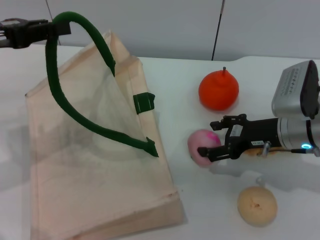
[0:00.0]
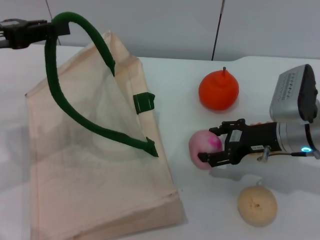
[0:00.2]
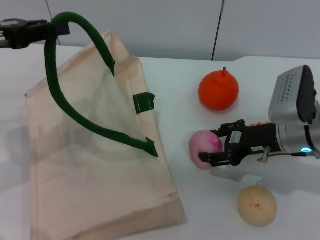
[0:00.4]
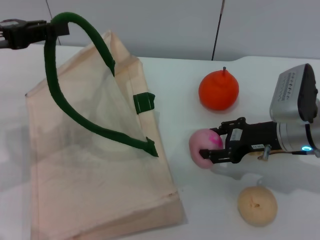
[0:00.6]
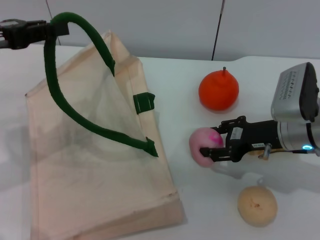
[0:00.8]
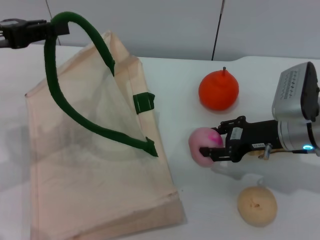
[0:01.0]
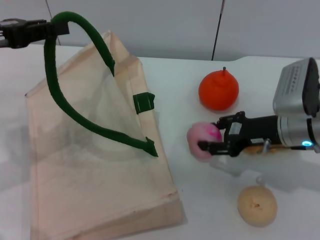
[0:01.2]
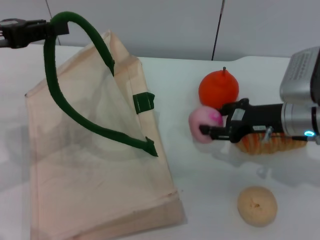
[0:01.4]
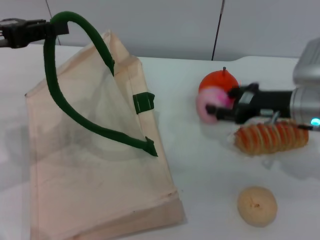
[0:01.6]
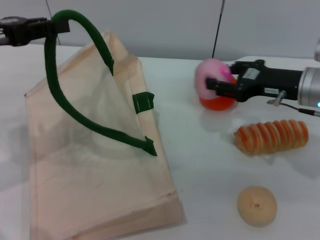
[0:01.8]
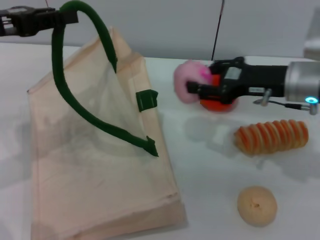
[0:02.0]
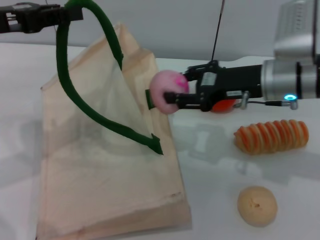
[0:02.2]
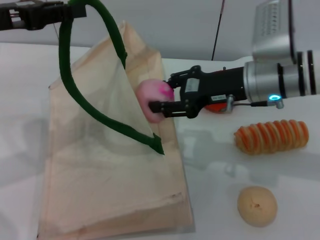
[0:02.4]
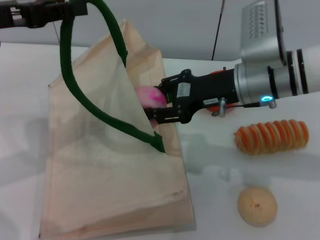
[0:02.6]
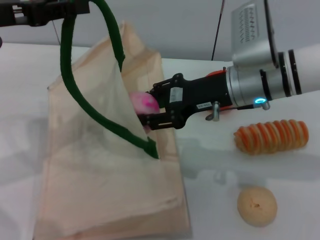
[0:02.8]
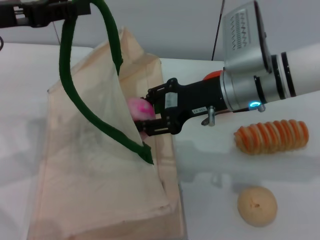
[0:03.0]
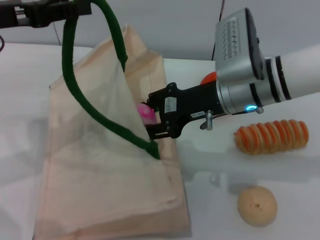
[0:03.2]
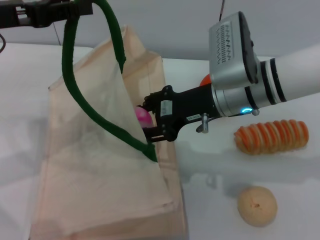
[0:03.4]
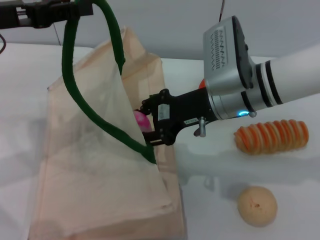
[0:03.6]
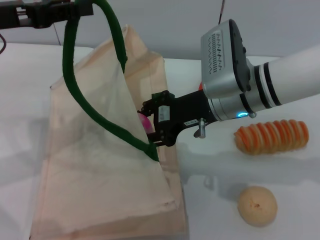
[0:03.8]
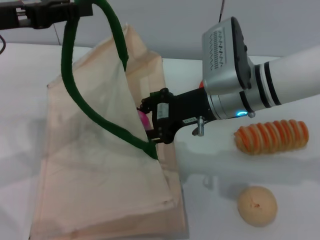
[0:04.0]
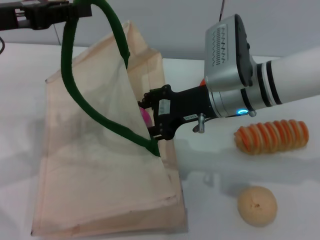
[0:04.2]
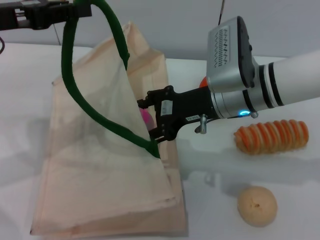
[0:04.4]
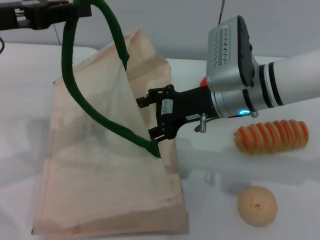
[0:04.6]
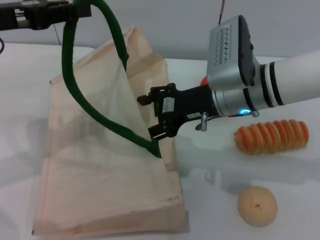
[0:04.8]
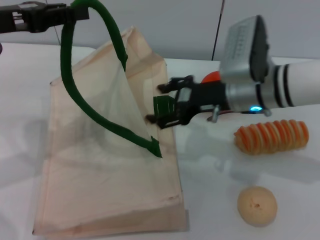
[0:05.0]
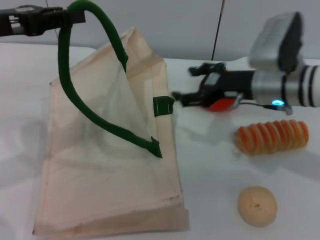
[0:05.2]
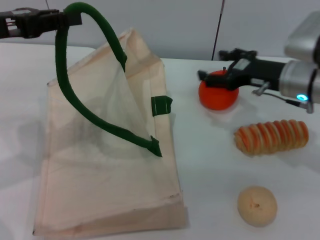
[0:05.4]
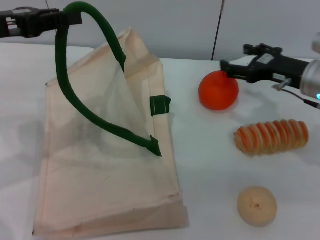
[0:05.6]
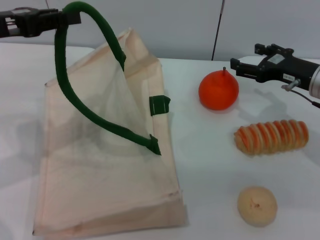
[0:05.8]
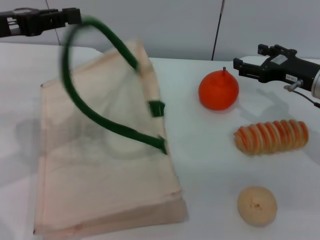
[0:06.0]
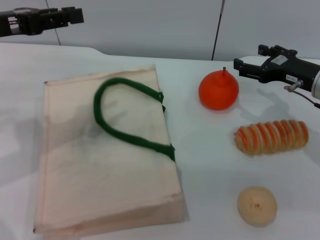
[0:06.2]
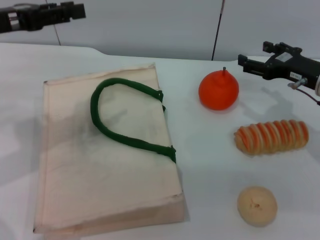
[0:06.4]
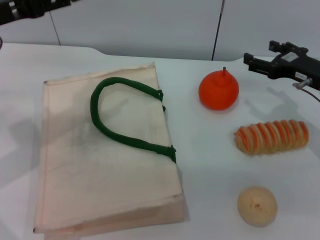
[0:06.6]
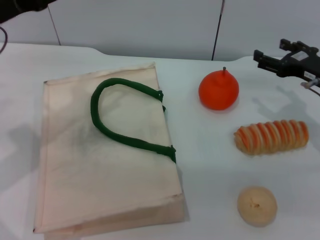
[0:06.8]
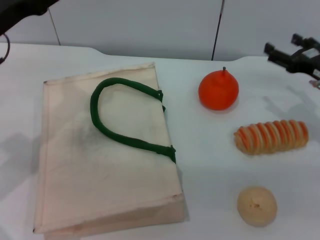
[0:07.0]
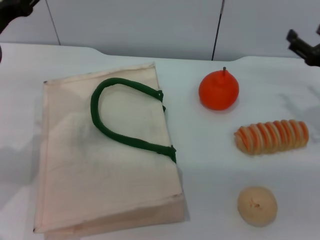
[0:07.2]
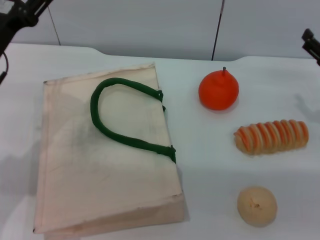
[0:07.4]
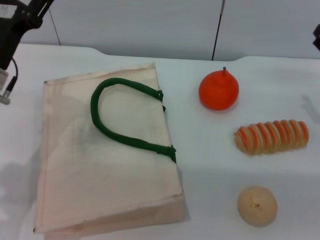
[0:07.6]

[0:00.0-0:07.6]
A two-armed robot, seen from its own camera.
Task of the whole recording: pick up the peach from the table and place it in the white handbag.
Step, 1.8 to 4.8 s: Place the peach into the woven bag with the right gripper.
Step, 5.0 to 6.8 s: Lower the woven bag with the left gripper to close it.
0.0 to 1.6 s: The right gripper closes up.
1.6 to 3.0 s: The right gripper travels to the left by approximately 10 cm.
3.0 to 4.6 s: The right gripper opens its fingers.
4.6 to 6.0 s: The right gripper moves to the right, some 15 cm.
6.0 to 7.6 s: The left gripper is displaced downward and to the right by some 10 cm, and opens up. The right gripper is displaced to the right by approximately 5 cm.

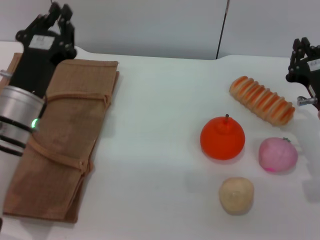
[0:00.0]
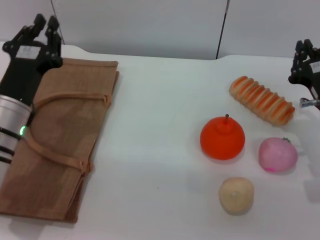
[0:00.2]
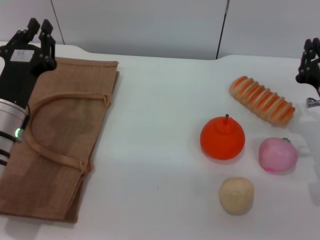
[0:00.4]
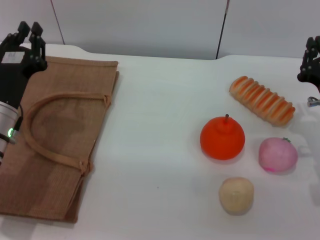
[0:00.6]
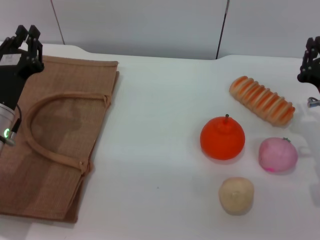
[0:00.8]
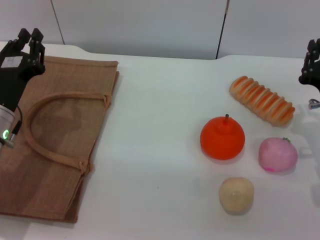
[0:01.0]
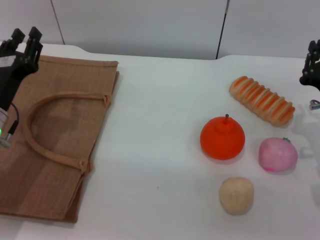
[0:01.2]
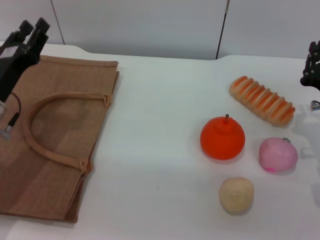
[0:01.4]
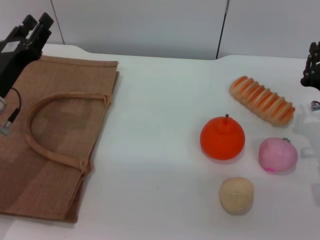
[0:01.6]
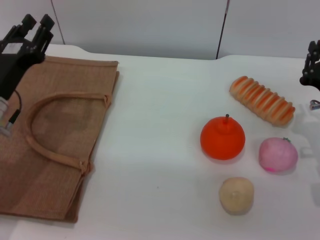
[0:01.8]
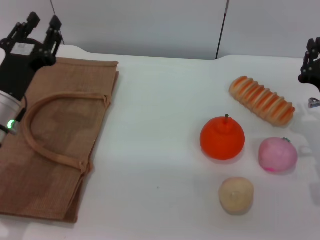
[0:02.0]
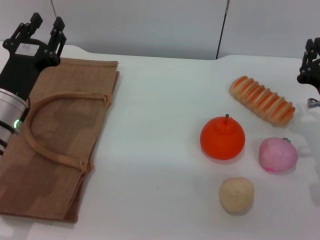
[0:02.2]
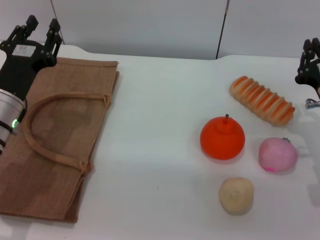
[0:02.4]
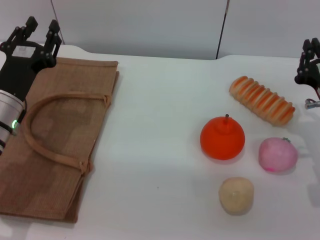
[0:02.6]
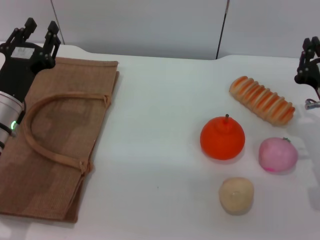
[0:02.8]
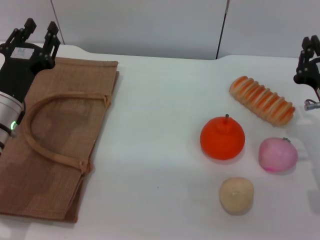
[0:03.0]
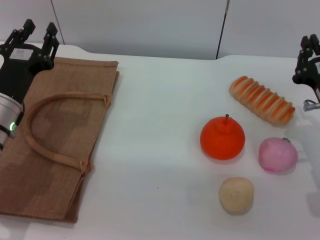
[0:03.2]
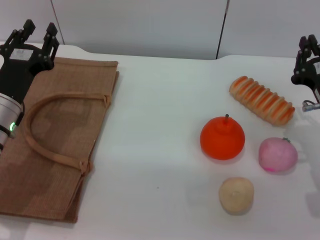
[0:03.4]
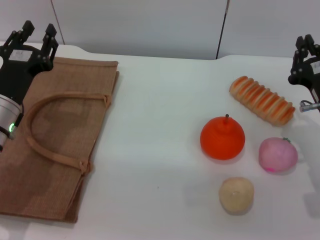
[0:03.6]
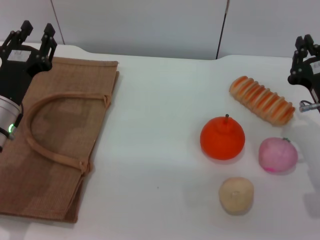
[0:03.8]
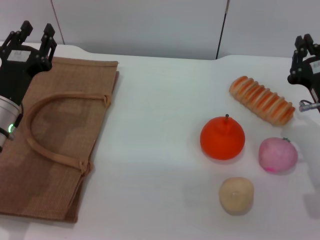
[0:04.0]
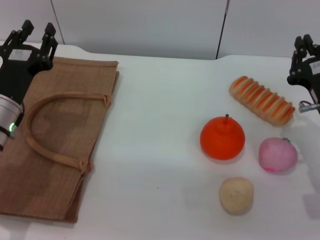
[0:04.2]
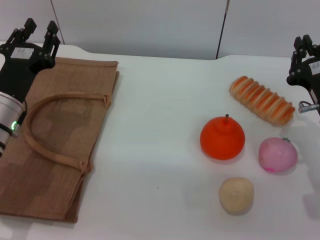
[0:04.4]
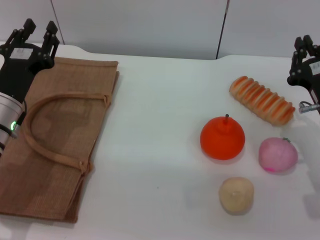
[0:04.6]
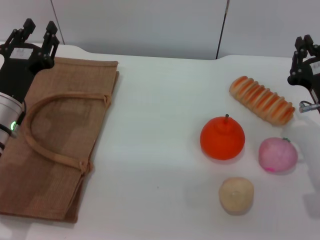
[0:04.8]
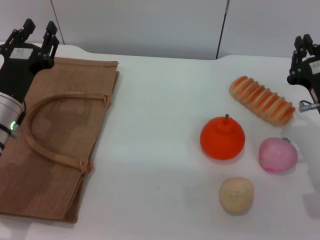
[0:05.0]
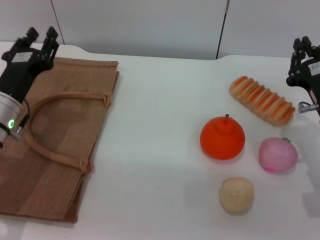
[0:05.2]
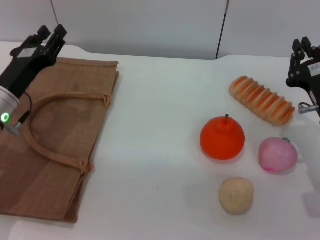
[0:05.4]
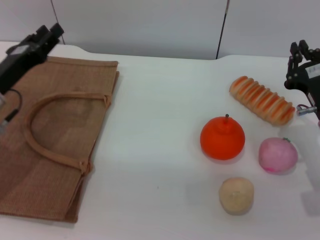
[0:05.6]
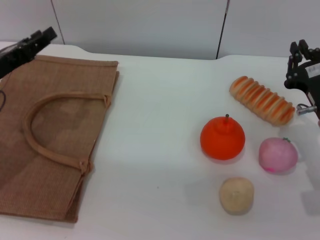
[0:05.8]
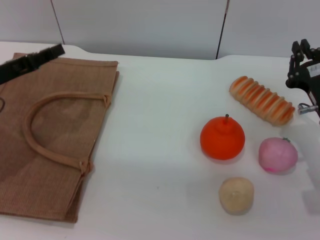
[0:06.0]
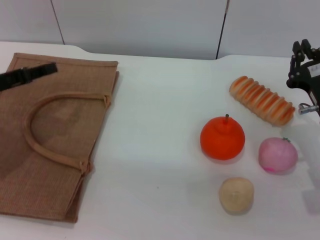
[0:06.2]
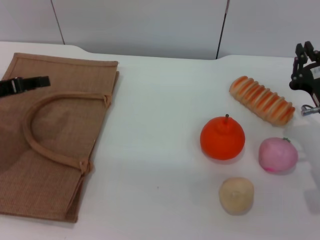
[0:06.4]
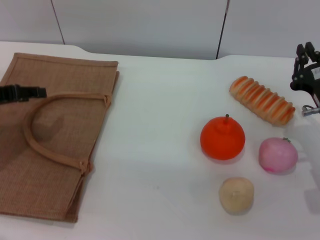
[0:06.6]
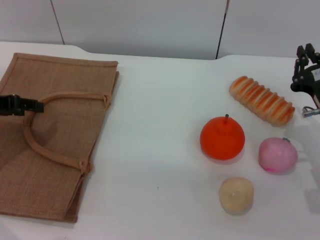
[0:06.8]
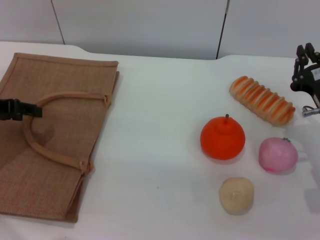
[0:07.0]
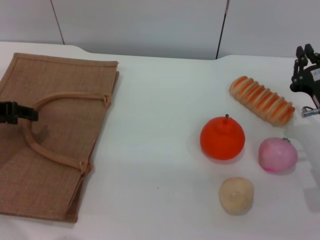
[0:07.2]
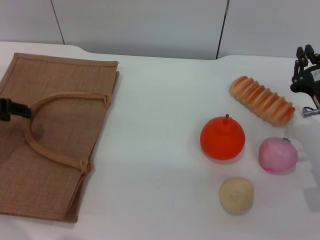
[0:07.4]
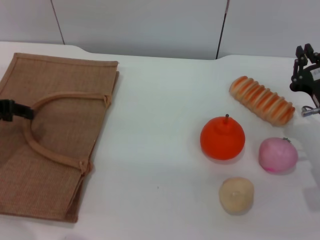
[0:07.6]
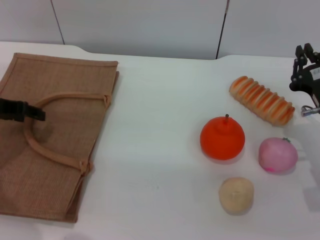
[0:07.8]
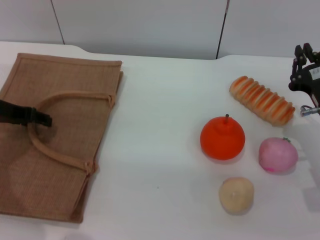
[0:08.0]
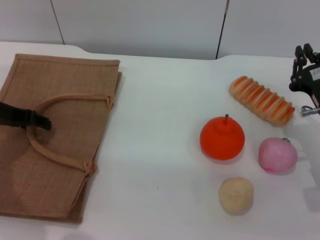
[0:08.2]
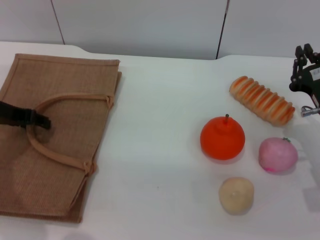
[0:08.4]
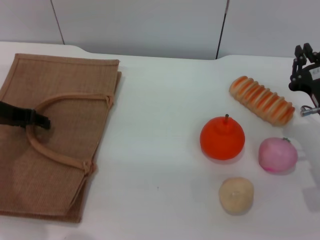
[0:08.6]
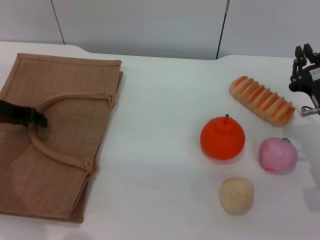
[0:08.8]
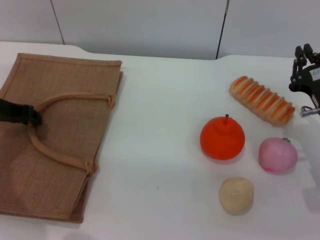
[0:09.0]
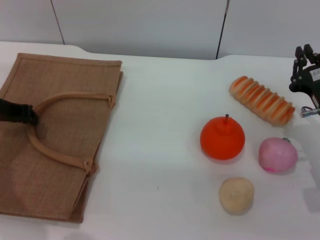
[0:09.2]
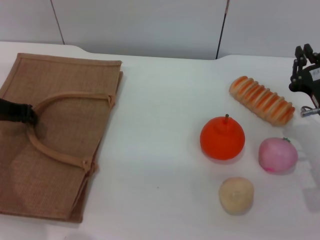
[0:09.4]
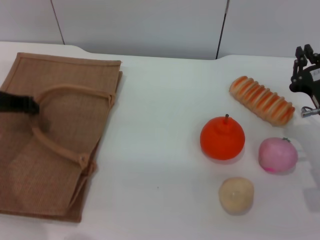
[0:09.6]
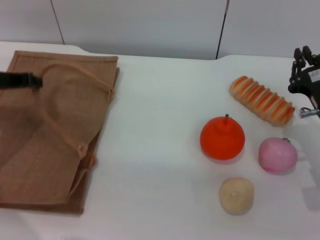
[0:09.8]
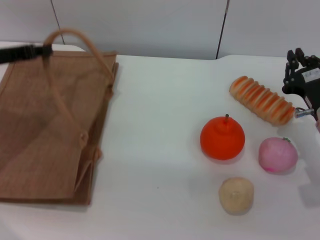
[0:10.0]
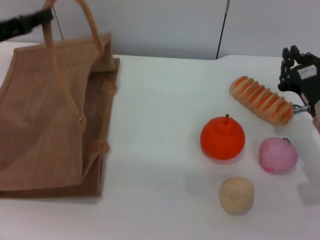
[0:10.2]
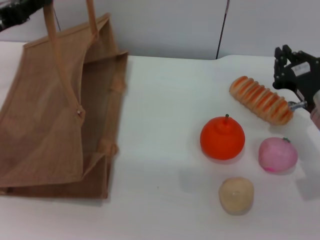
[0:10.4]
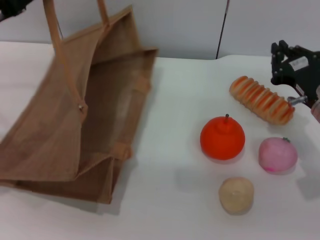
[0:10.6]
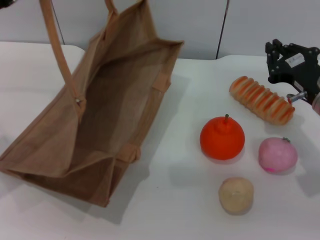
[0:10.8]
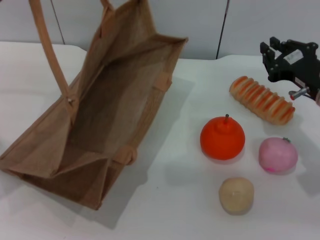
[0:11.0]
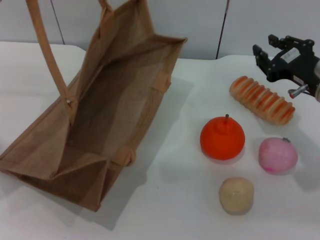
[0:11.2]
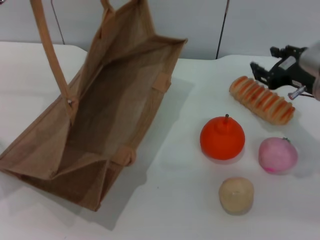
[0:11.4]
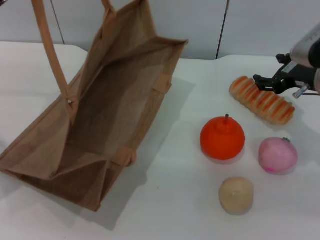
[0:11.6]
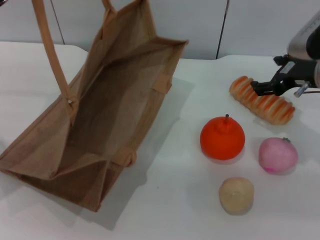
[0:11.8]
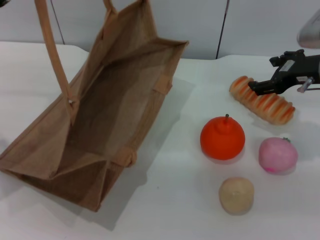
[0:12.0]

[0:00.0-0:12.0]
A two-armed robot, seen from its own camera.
Task of the whole recording: pick up the bread from the table and place it in the brown handbag.
Step, 0.0 to 10.0 s: Lift the woven bag with the left gripper to open it.
0.0 to 1.6 s: The left gripper shifts approximately 5 cm to the left, and opens its fingers.
3.0 to 4.4 s: The two grippers keep their place.
4.4 to 6.0 s: The left gripper is displaced to the left and upward by about 10 cm.
7.6 to 9.0 s: The left gripper closes.
9.0 to 10.4 s: The left gripper is displaced upward by roughly 5 cm, and closes up.
10.4 to 12.0 s: The right gripper shifts some 10 cm upward and forward, and opens up.

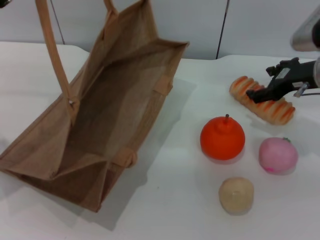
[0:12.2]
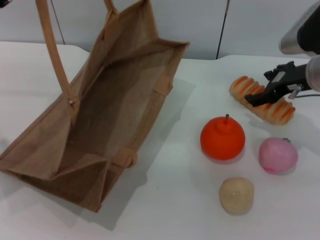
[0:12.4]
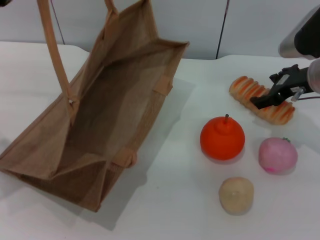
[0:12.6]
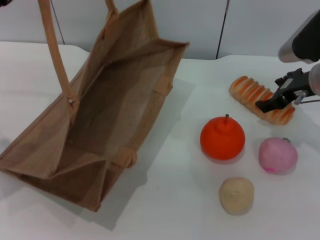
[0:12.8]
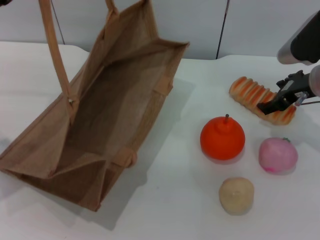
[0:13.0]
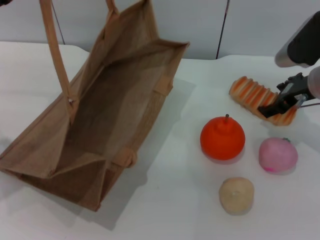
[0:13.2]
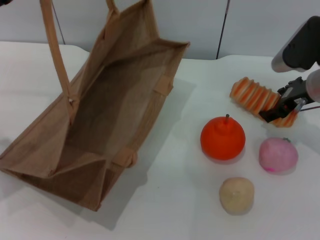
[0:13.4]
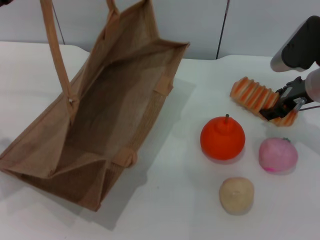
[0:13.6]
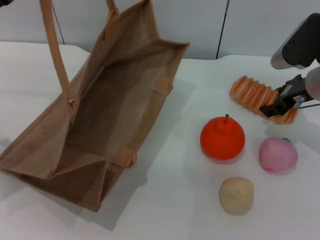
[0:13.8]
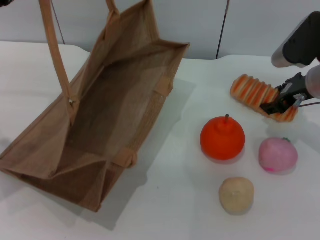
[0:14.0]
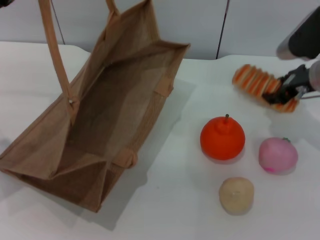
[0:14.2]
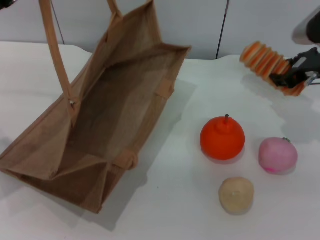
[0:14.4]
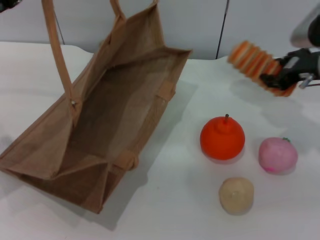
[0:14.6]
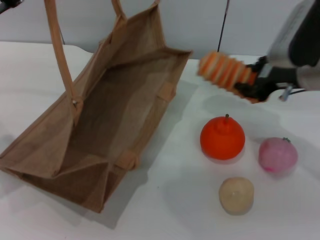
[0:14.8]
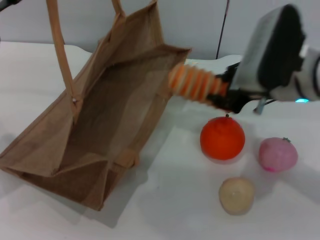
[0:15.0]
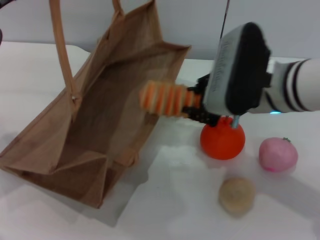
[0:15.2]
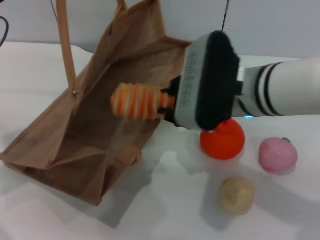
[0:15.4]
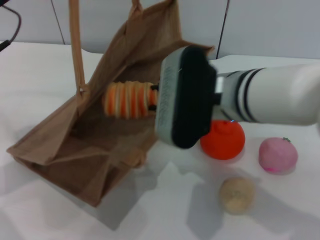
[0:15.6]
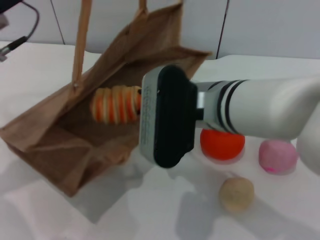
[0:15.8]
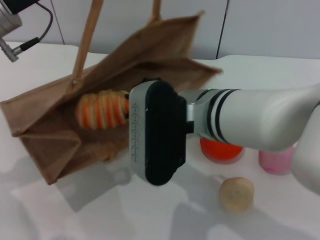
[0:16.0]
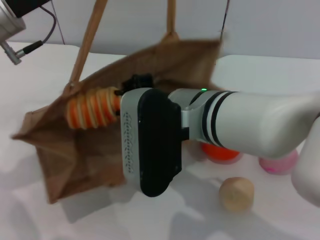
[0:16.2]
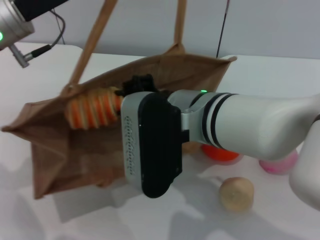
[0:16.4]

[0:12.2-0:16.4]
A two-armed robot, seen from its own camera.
Task of the whole recording: pick up the bread from the table and place it in the brown handbag.
Step, 12.2 to 14.4 s: Pick up the bread with the right gripper.
12.2 to 13.6 s: There are only small adjustments of the grippers.
13.6 to 15.0 s: The right gripper shifts approximately 10 cm to the left, backward and upward, and closes.
15.0 to 16.4 s: The right gripper travels to the left and backward by about 15 cm; the left gripper is displaced to the right by roughly 5 cm.
